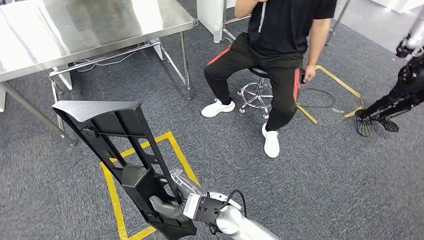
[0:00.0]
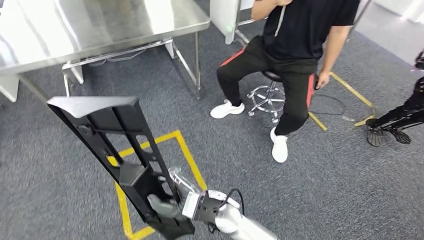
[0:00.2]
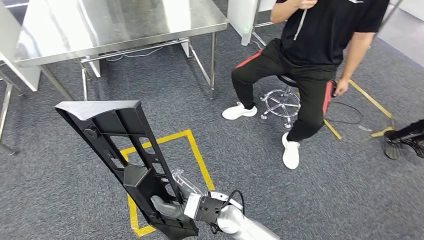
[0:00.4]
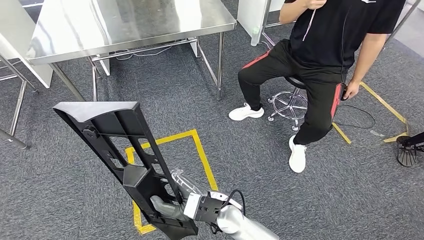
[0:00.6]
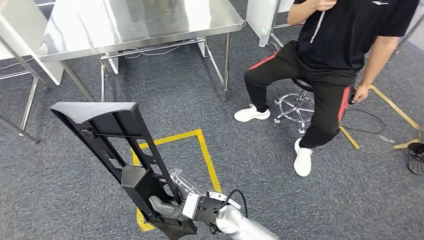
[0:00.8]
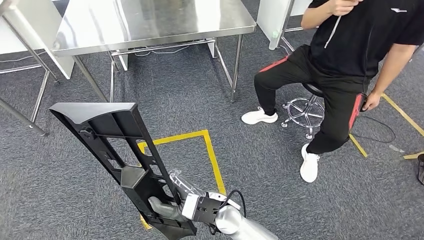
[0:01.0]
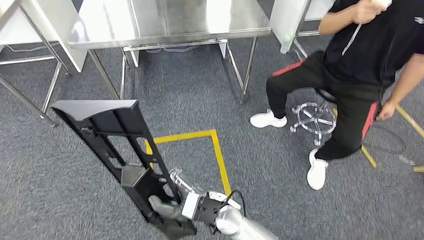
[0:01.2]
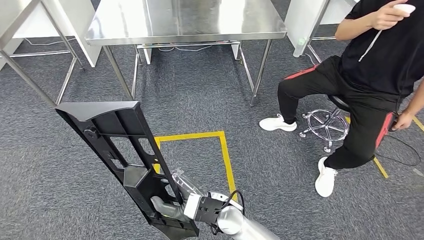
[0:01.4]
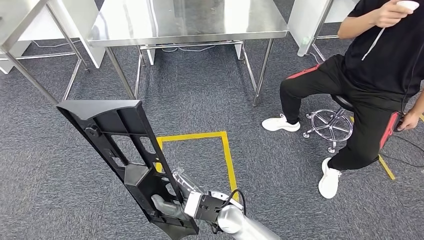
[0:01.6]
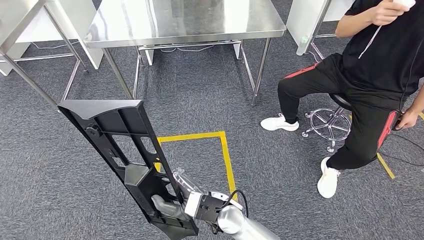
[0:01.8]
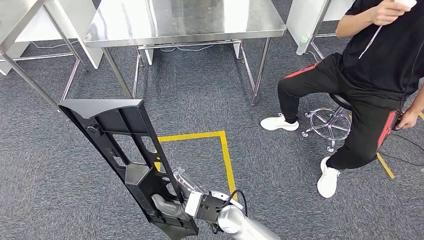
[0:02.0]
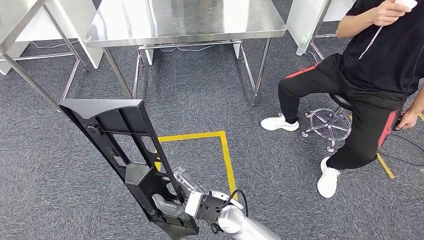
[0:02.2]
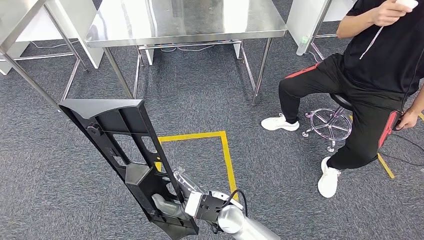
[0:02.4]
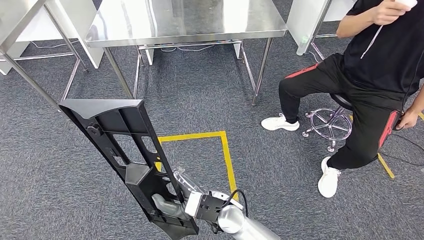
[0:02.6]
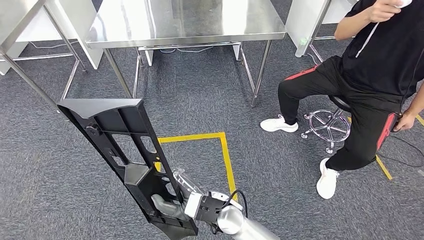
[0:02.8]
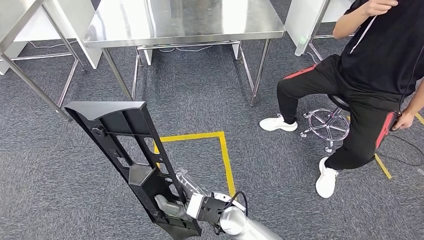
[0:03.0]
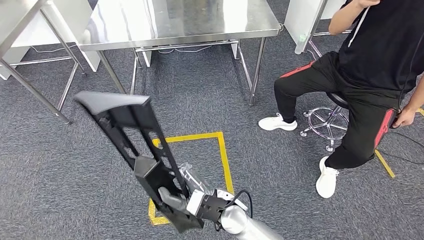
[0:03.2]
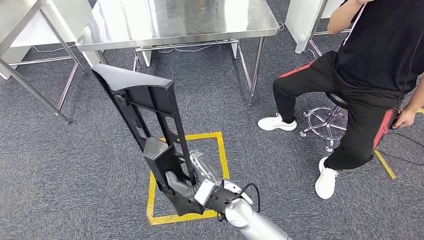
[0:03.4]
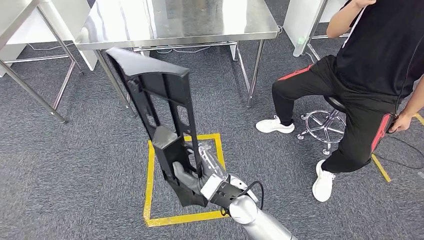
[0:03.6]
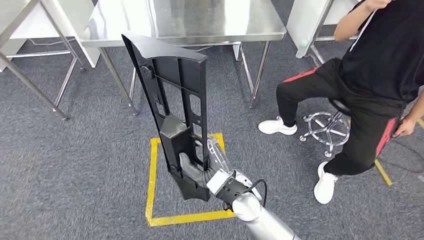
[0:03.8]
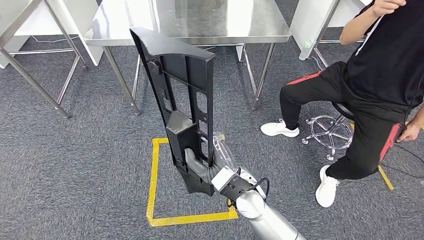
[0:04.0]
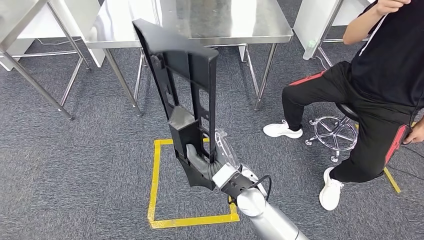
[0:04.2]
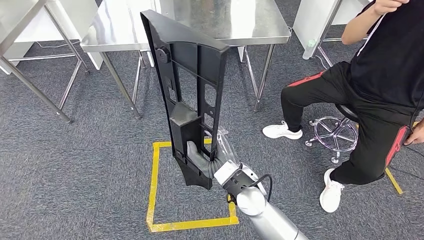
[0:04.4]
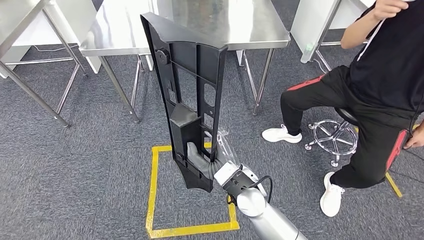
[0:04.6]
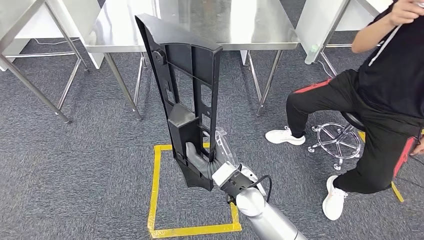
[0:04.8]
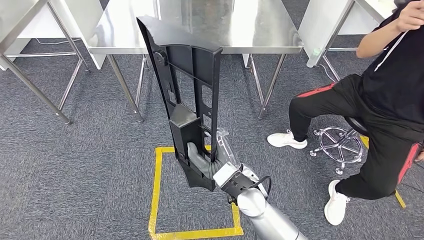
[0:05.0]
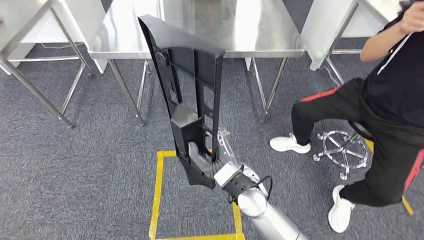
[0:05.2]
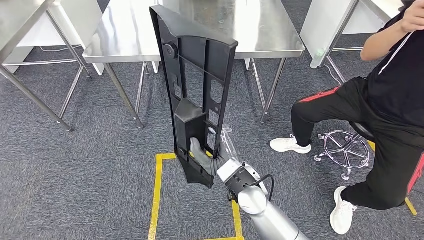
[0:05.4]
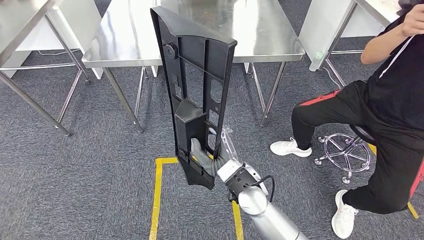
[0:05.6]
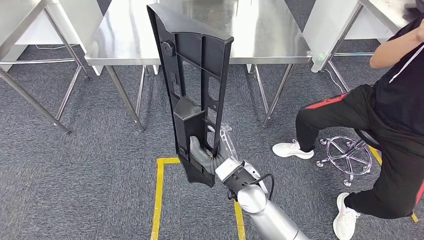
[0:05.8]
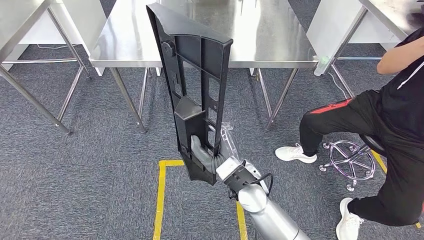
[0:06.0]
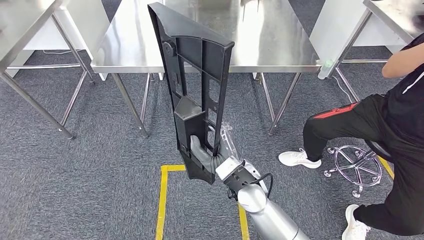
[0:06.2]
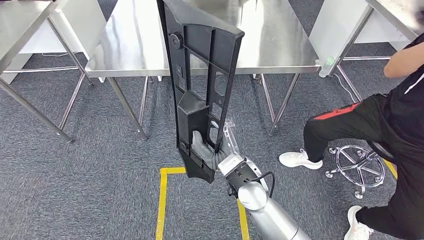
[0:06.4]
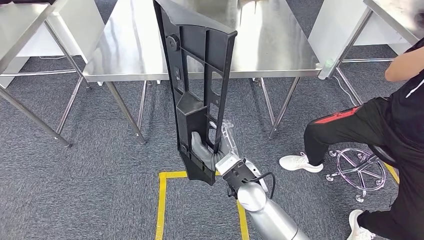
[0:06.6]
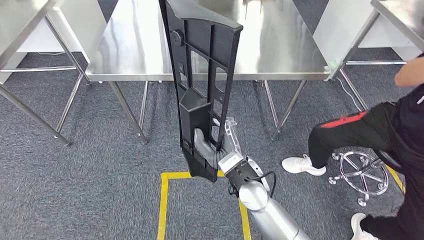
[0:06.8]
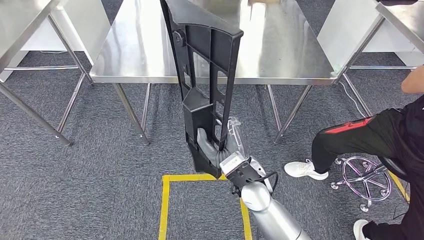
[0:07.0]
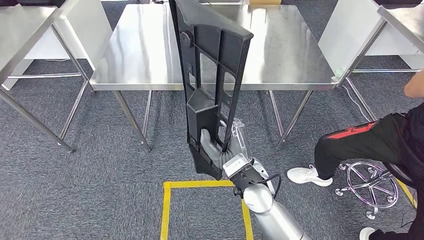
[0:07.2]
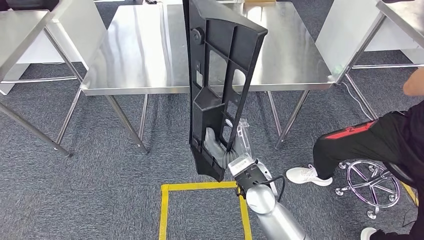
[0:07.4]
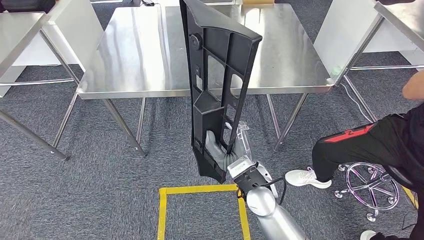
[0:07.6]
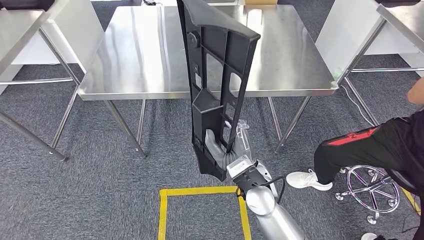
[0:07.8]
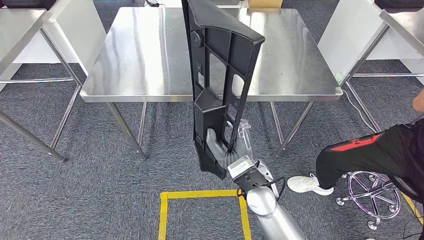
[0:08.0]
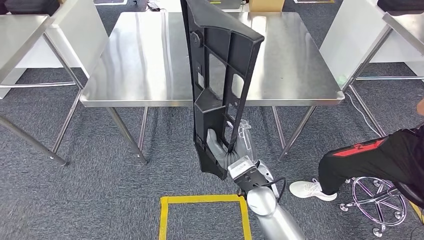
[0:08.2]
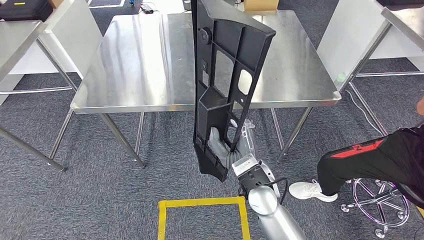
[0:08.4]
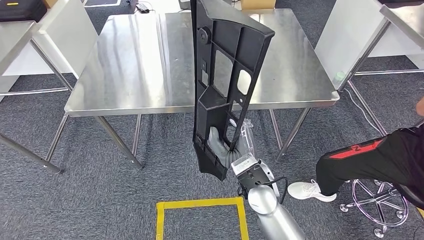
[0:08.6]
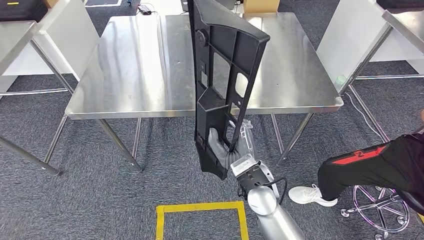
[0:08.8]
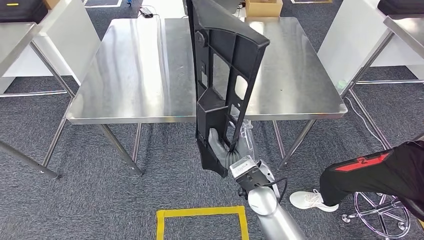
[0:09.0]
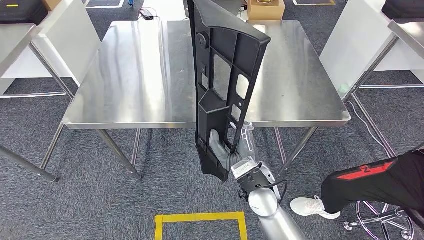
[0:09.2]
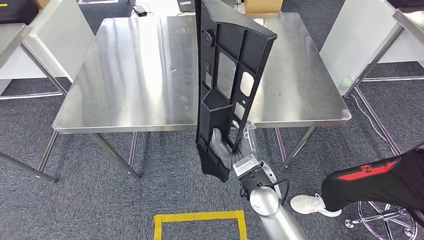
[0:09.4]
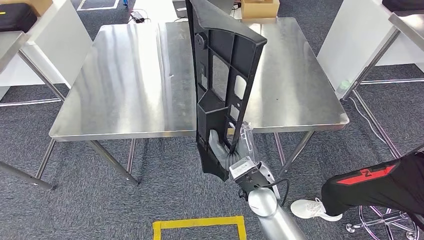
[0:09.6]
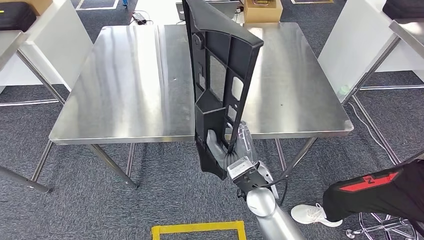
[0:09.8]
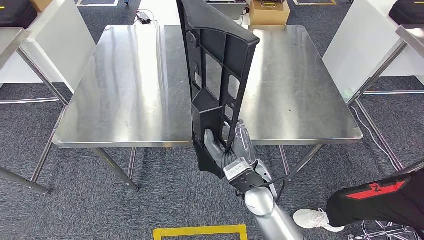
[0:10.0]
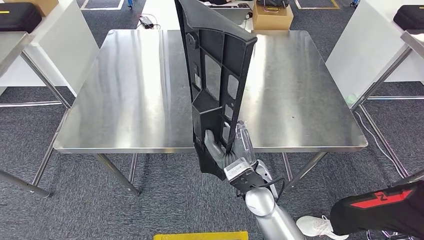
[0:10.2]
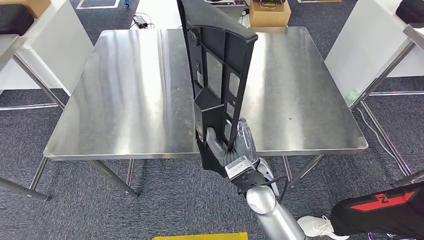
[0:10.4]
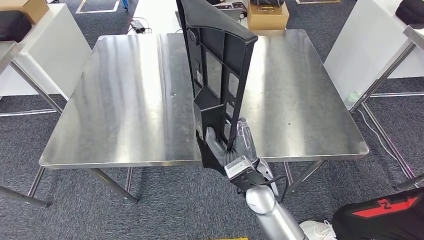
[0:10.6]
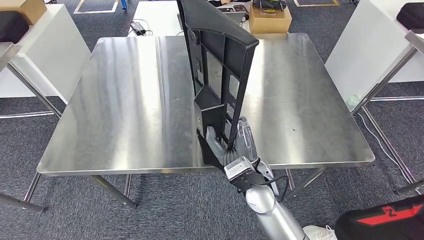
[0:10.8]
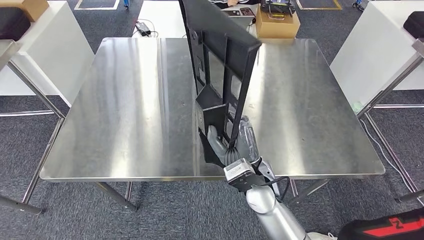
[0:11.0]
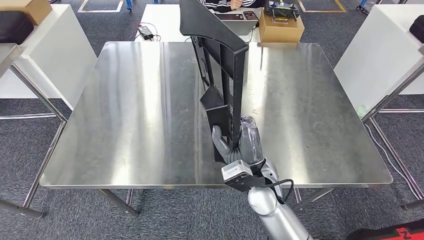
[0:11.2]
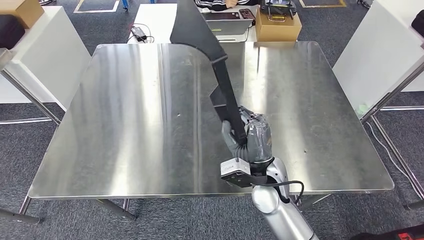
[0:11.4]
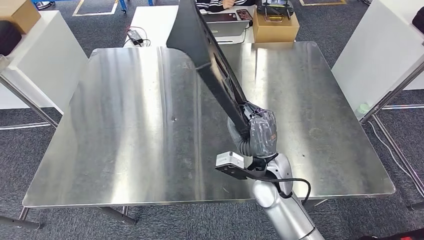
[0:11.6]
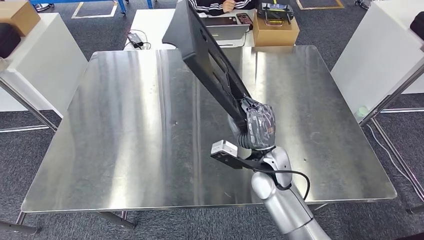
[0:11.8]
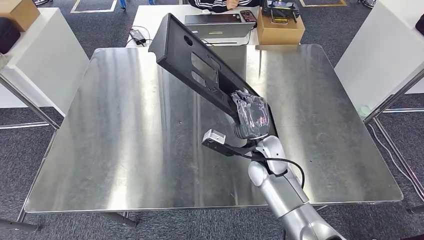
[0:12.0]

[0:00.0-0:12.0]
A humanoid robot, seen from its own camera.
Step, 0:00.0 to 0:08.4: Move the large material to the workbench.
0:01.6 to 0:03.0: The two hands keep their place.

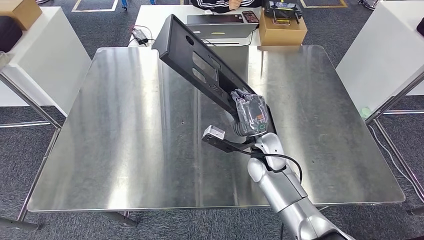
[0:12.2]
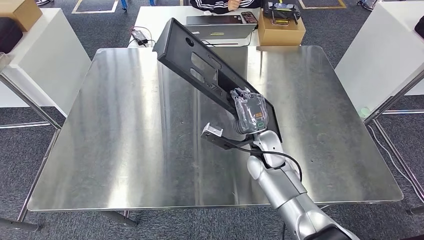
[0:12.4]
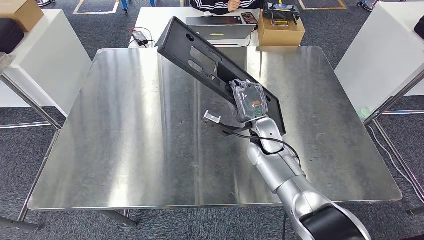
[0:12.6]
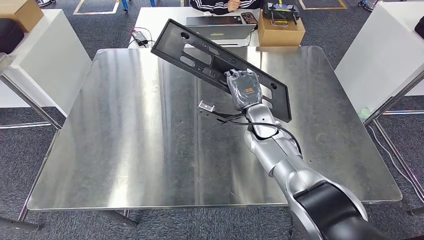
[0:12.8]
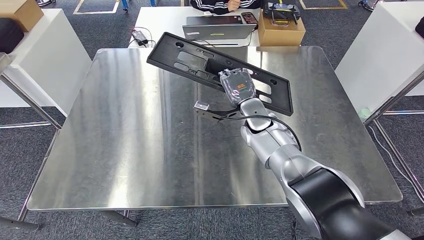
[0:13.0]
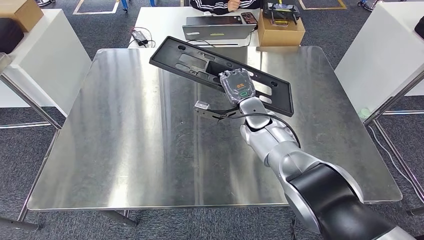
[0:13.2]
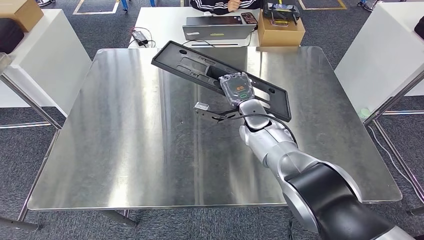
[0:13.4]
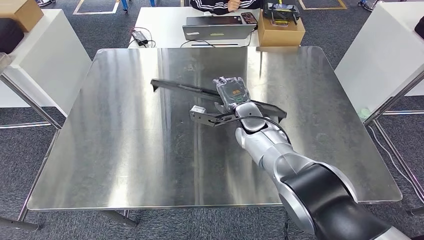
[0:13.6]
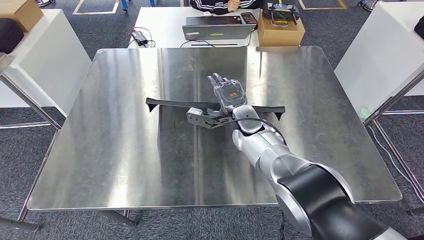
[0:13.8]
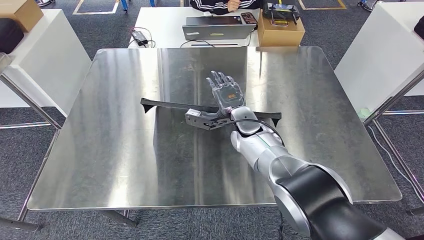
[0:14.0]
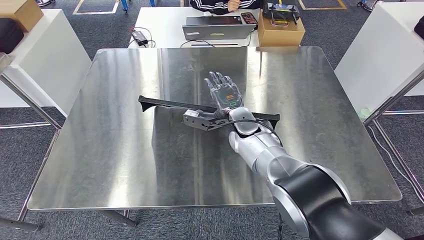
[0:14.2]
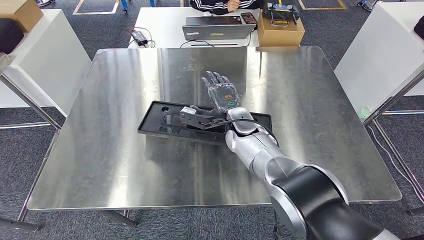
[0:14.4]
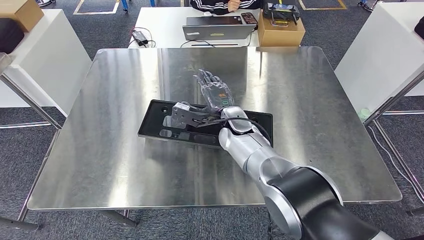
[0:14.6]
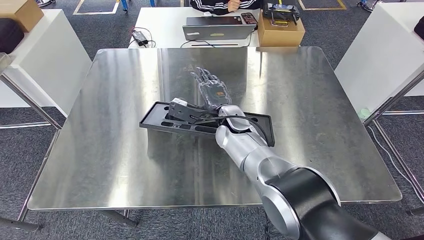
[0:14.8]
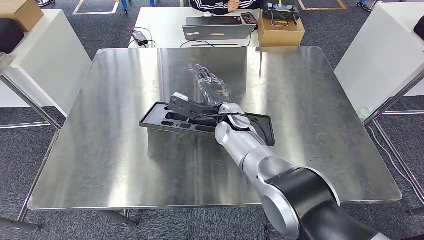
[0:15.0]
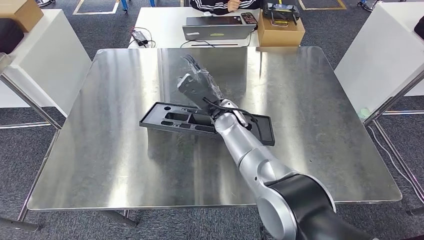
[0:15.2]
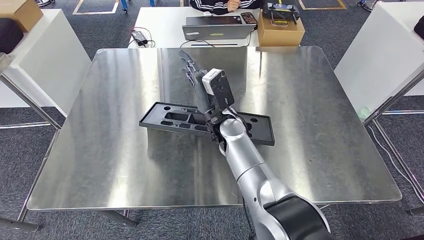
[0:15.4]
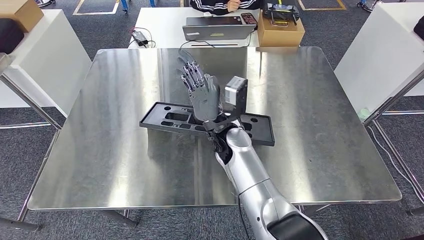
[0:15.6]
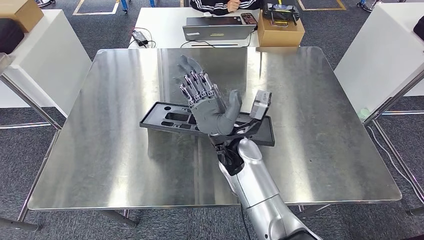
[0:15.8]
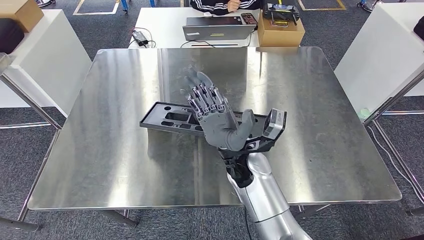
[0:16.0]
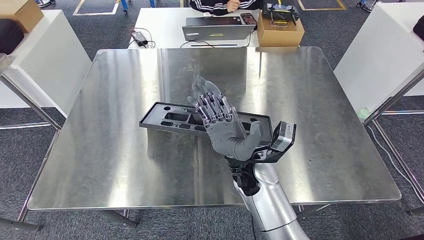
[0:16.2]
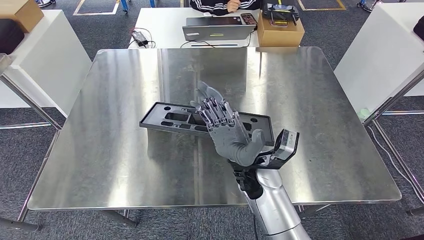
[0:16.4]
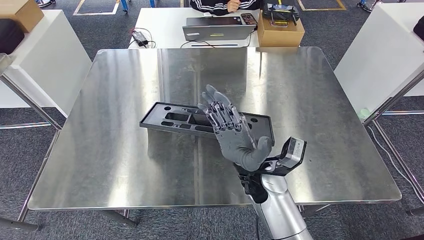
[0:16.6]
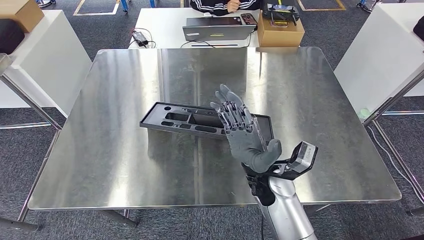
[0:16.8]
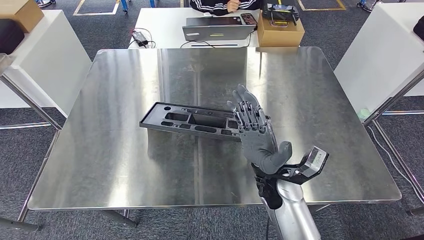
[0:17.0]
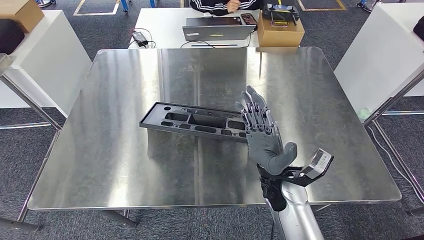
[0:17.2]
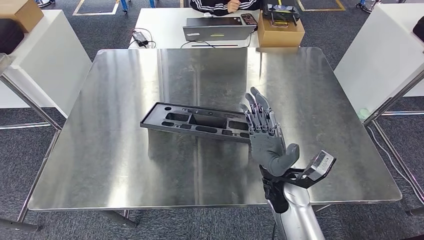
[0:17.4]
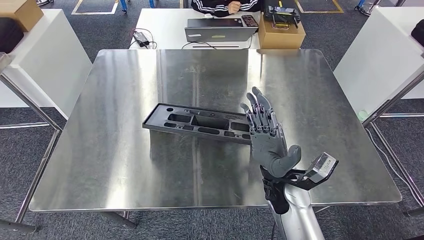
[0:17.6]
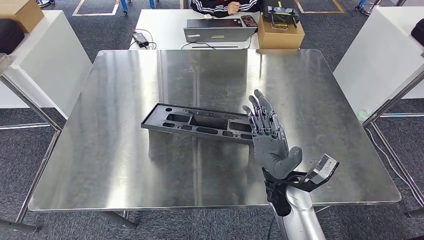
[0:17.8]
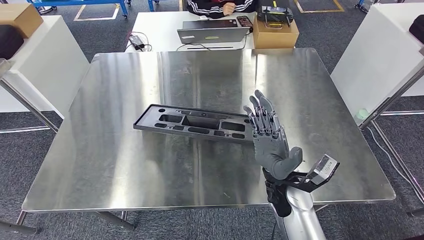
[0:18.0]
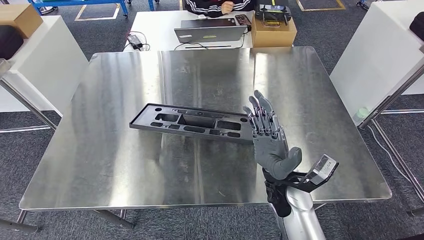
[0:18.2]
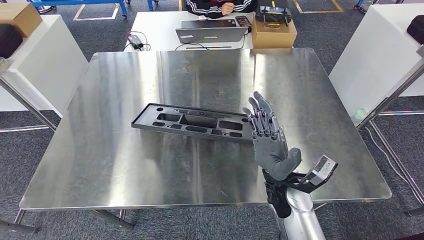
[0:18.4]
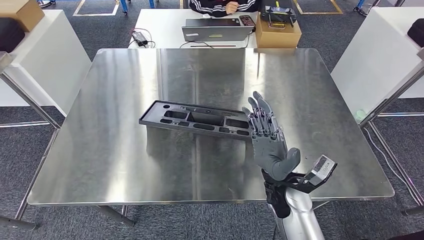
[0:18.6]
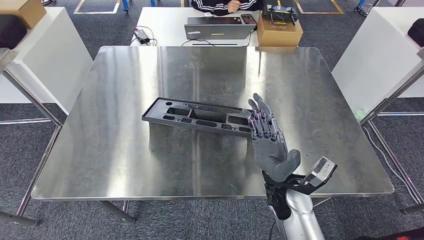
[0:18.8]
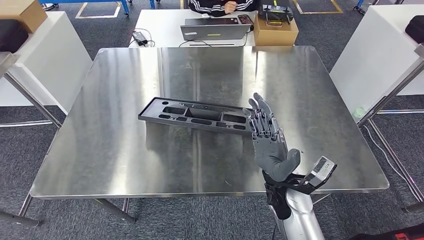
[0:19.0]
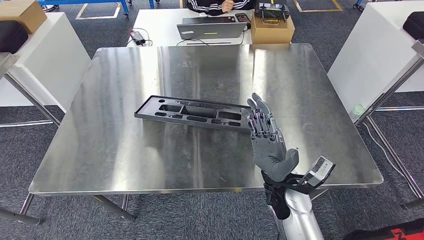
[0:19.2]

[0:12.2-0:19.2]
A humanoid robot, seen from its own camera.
0:12.2 to 0:13.6: The right hand travels forward by roughly 10 cm.
0:13.6 to 0:15.0: The right hand travels to the left by about 5 cm.
0:15.0 to 0:16.4: The right hand shifts roughly 15 cm backward.
0:16.4 to 0:17.8: The right hand travels to the right by roughly 5 cm.
